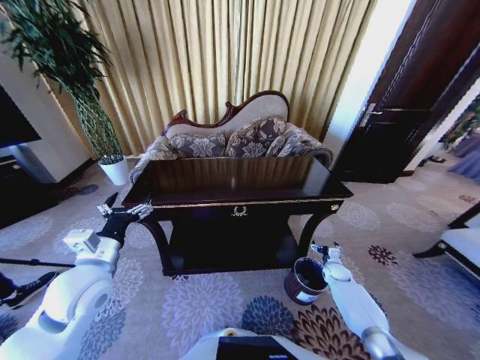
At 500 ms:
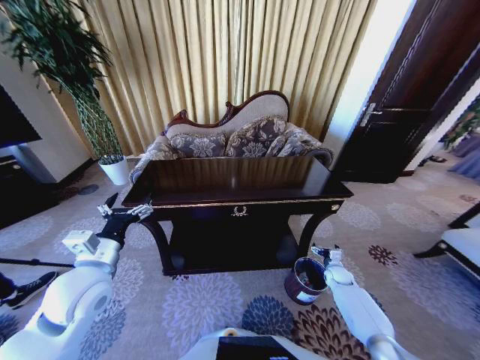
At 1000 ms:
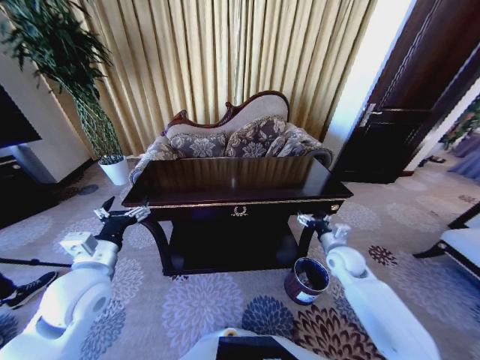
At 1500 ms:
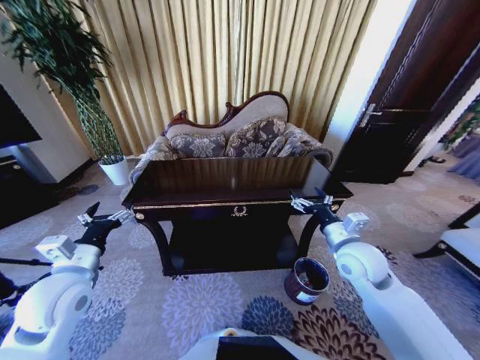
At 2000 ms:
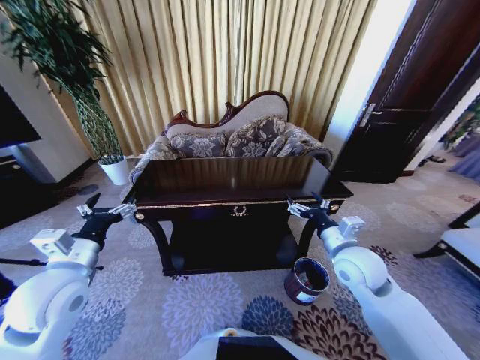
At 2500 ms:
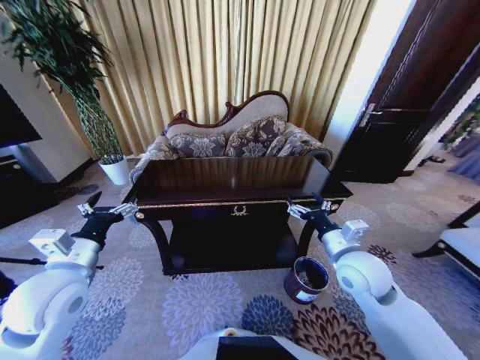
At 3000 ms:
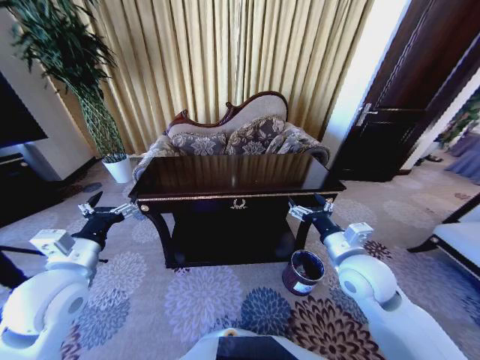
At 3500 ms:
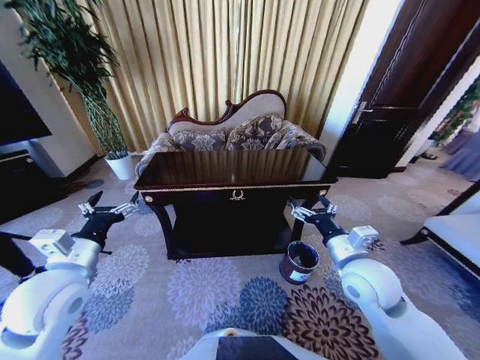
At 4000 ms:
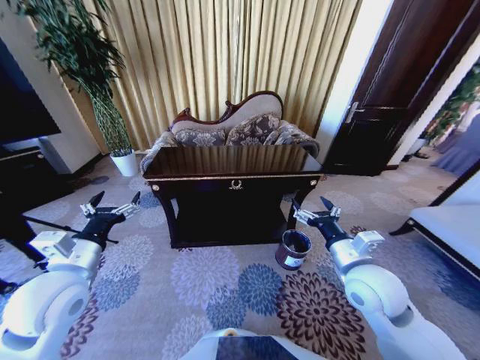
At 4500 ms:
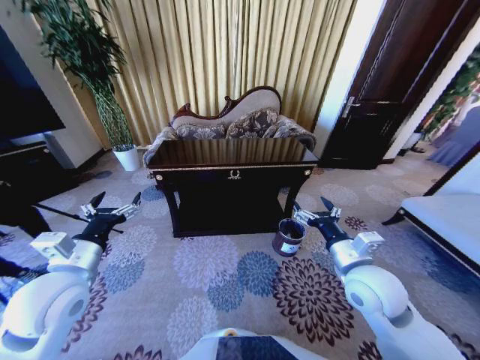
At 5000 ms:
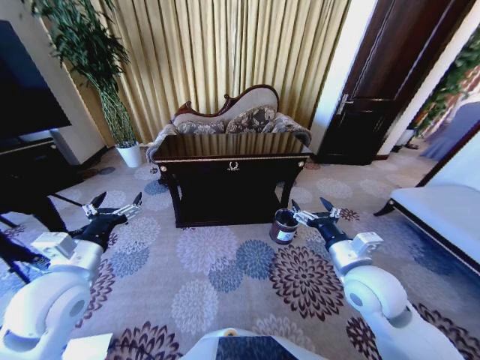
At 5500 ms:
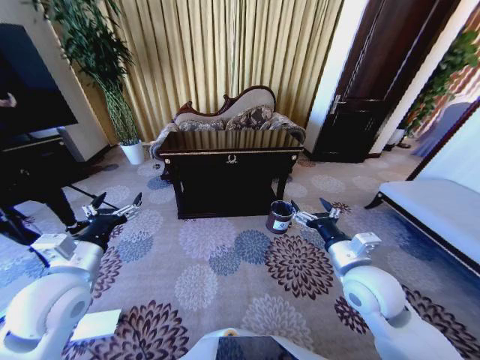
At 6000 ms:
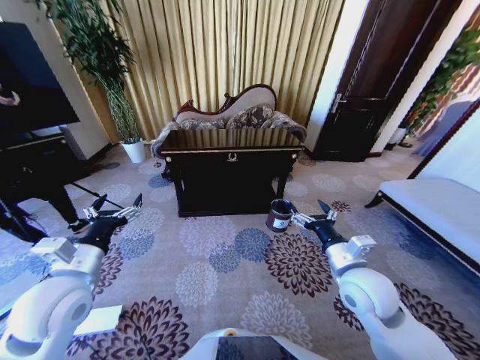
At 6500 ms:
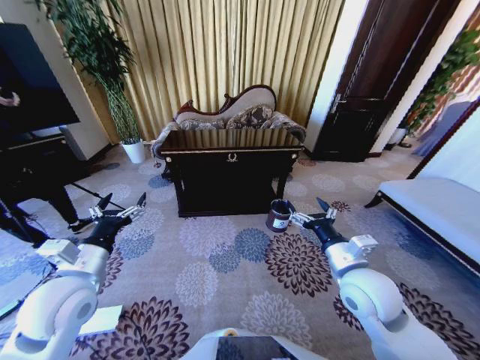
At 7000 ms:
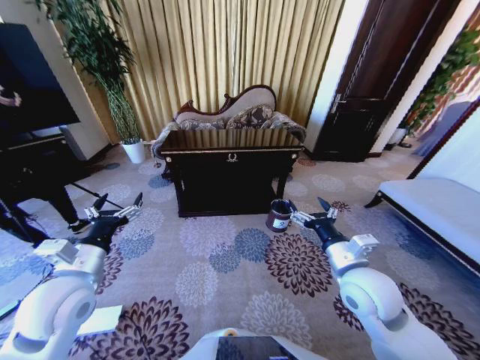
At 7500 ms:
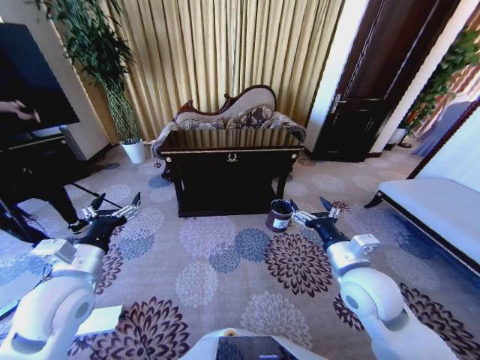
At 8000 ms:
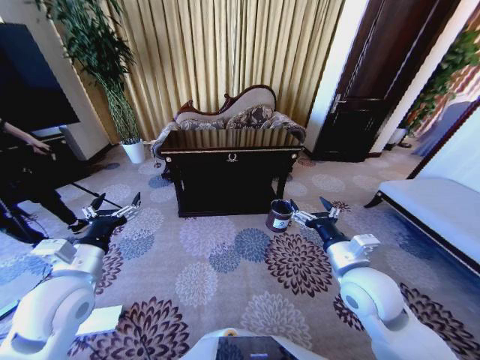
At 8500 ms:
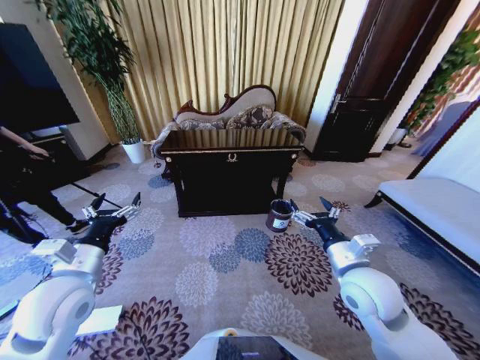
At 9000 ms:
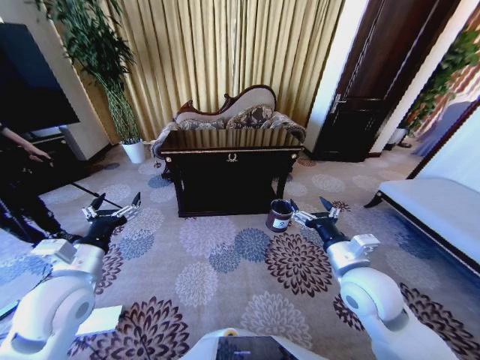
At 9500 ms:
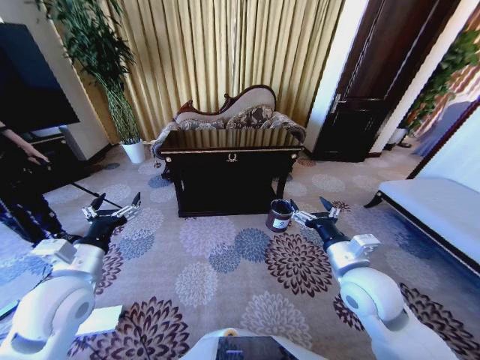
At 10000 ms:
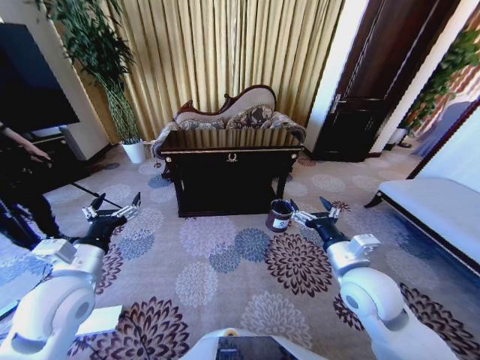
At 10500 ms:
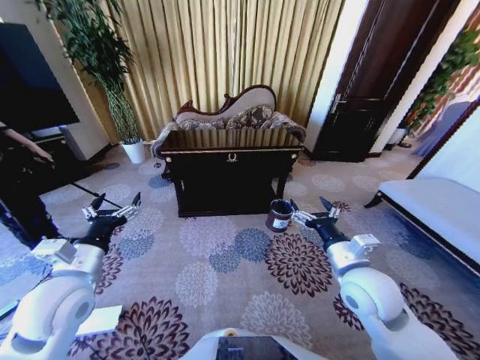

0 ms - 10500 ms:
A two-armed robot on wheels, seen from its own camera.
Task of the whole recording: Move to the front of the table and place the trash on the table into the trash bin.
0 ms - 2000 ms: The right gripper moves upward and to the left, some 35 cm.
2000 ms - 4000 ms: The right gripper is displaced backward by some 5 cm.
6500 ms - 10500 ms: Neither gripper changes place.
